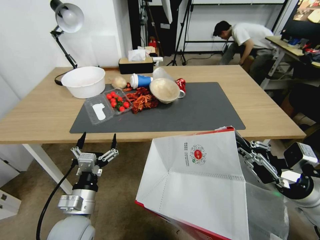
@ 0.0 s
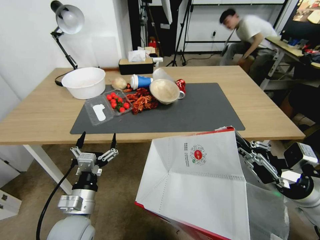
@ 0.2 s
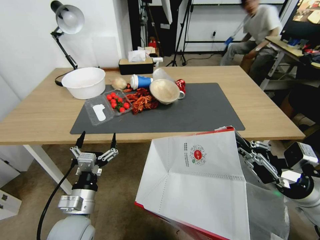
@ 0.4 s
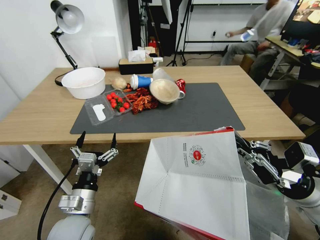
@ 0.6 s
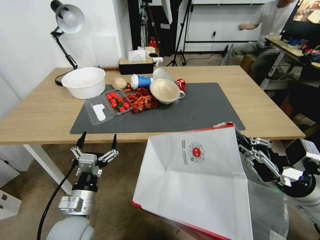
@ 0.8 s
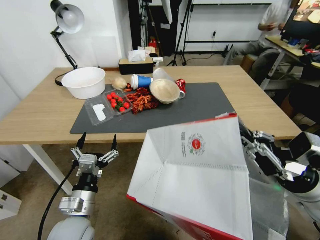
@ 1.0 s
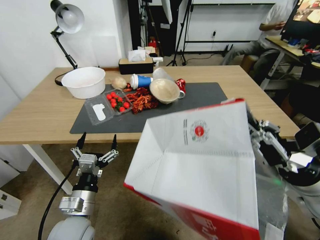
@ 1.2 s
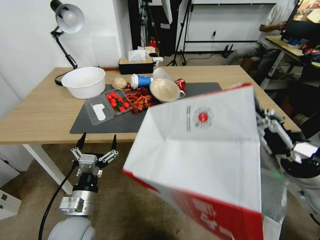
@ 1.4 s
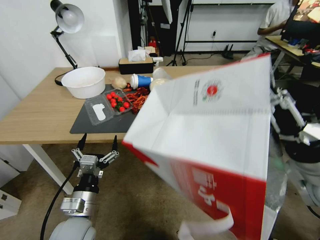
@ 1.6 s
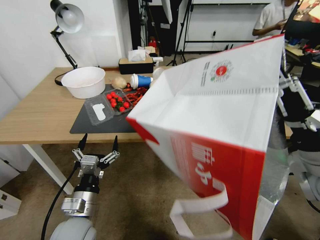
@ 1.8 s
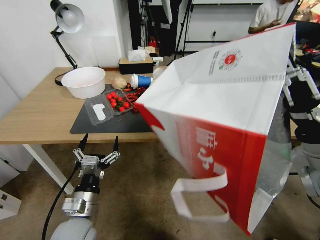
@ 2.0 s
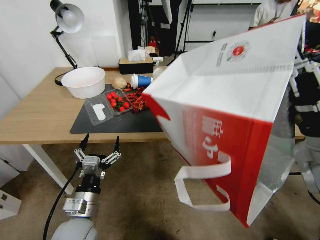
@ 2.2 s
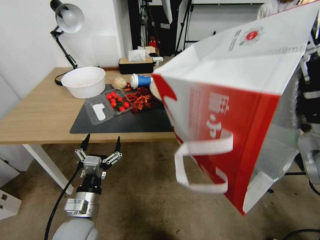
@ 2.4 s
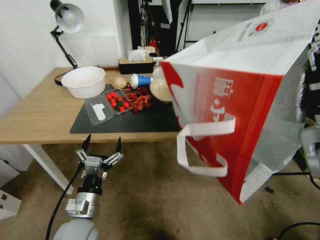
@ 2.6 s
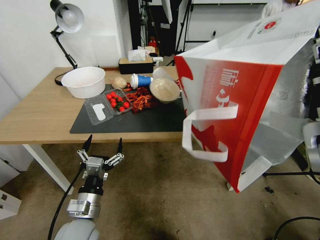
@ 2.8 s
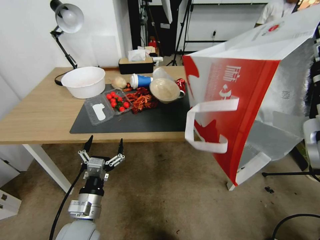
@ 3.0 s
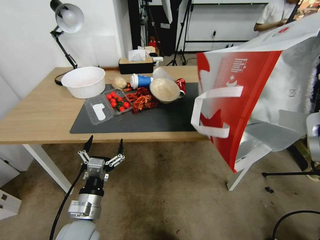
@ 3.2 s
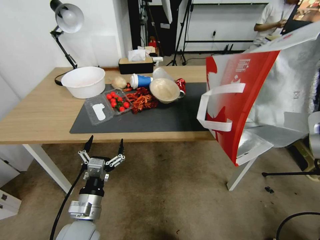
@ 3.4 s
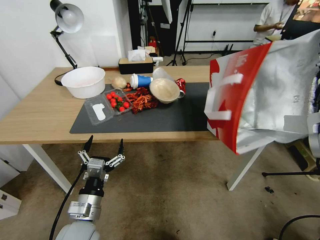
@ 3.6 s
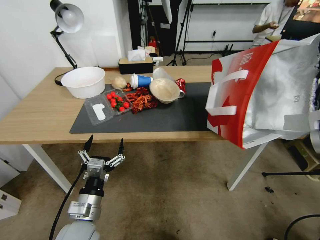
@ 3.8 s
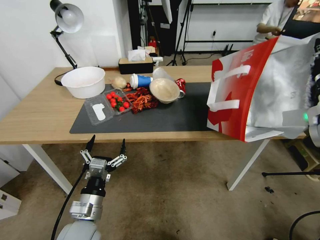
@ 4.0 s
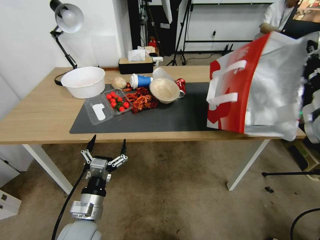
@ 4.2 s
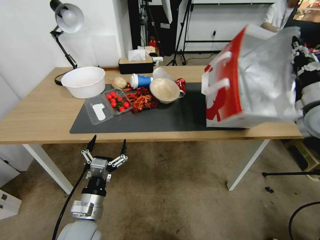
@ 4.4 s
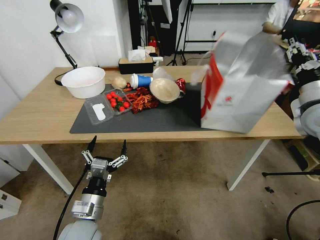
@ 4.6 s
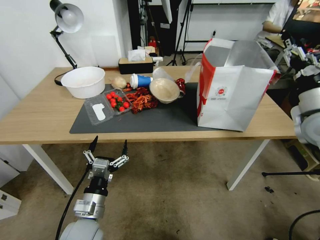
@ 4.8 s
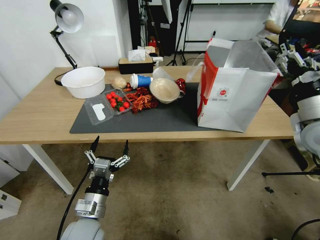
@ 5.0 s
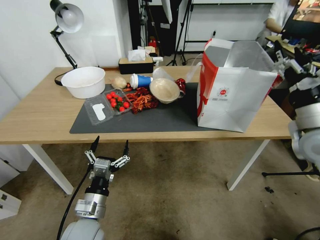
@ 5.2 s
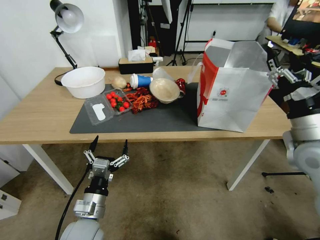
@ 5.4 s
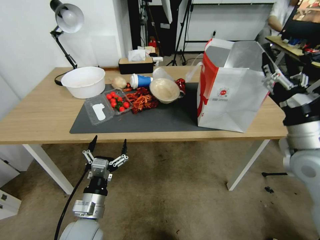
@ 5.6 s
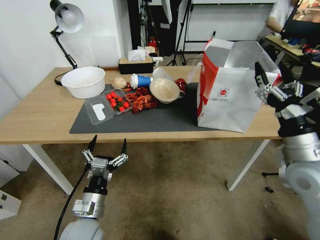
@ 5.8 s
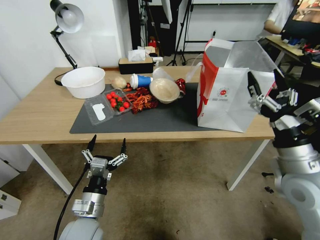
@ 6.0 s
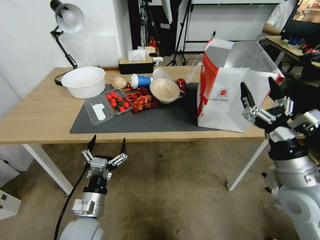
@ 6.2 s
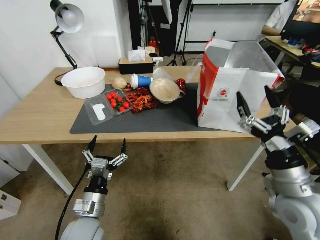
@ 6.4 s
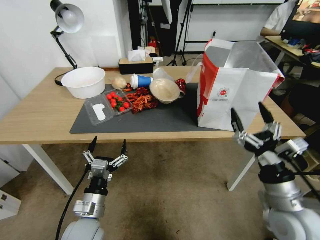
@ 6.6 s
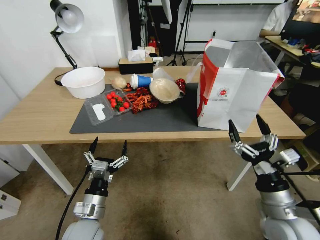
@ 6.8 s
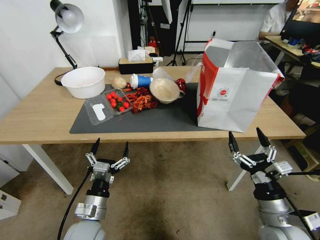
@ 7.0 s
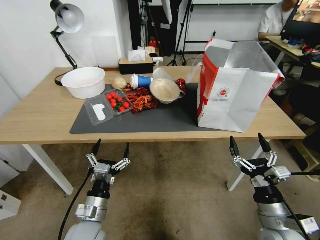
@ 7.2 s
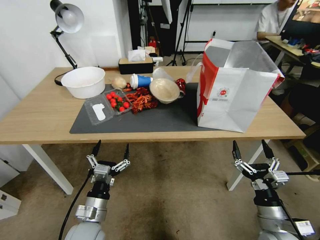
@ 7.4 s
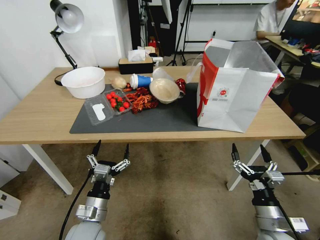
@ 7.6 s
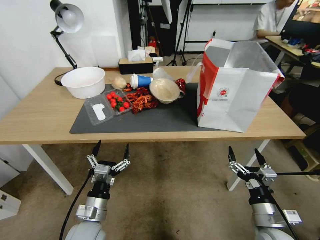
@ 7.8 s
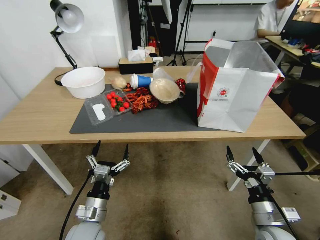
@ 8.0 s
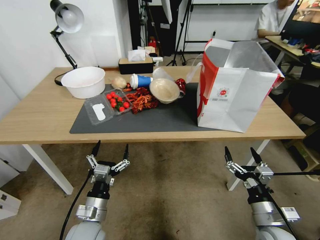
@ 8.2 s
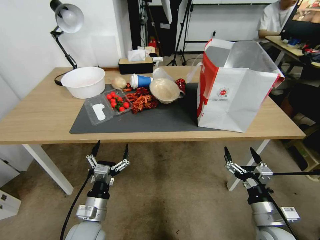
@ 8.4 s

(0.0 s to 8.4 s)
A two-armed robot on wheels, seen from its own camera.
Task of the whole recording: Pick up the food delivery bag from the floor and place it on the table.
0.0 s - 1.4 s: The right gripper moves upward, some 5 cm.
1.4 s - 2.8 s: The right gripper goes approximately 10 cm upward.
2.8 s - 4.2 s: The right gripper shifts roughly 10 cm forward and to the right.
4.2 s - 5.6 s: The right gripper travels backward, to the left and downward by about 10 cm, and opens up.
5.6 s - 7.0 s: The right gripper goes roughly 20 cm downward and backward.
